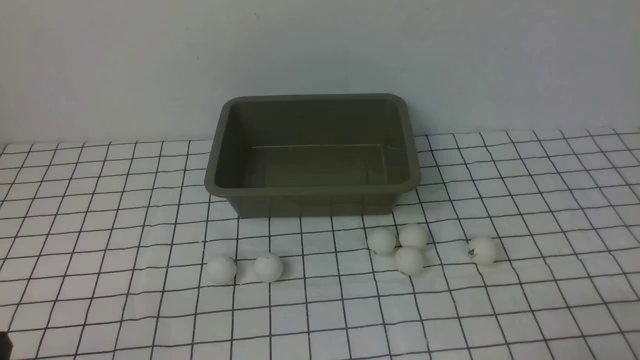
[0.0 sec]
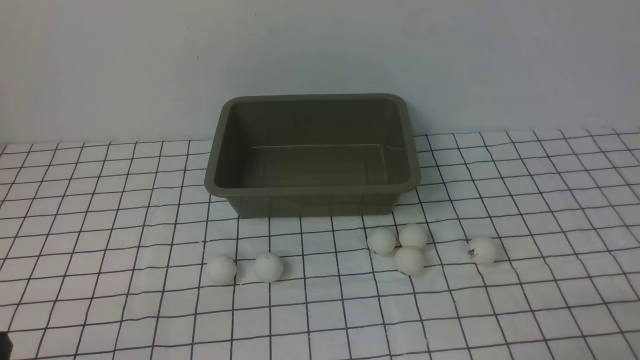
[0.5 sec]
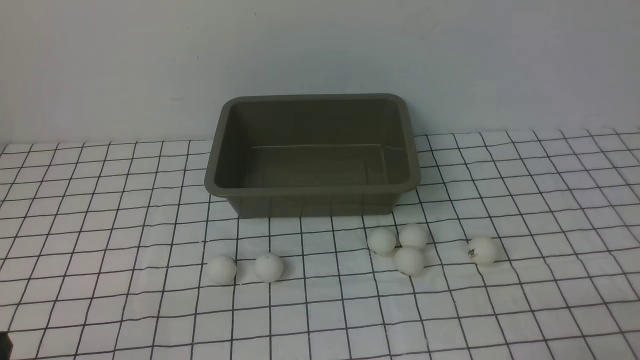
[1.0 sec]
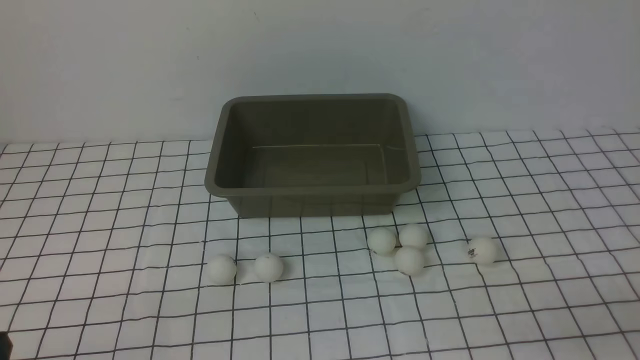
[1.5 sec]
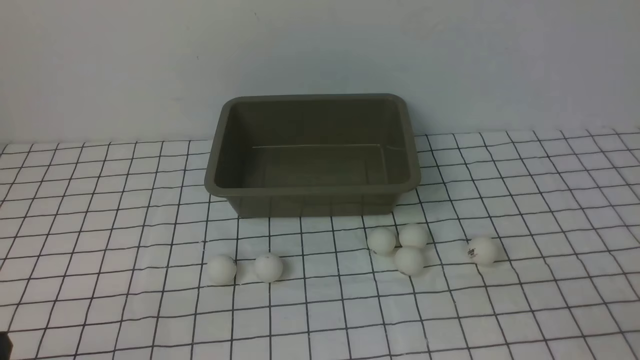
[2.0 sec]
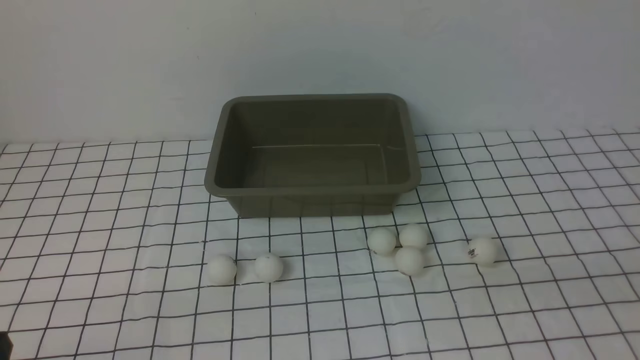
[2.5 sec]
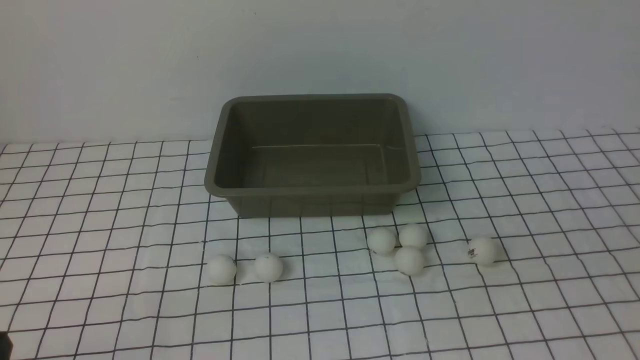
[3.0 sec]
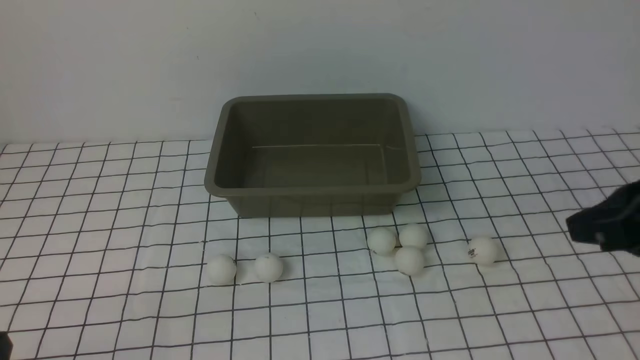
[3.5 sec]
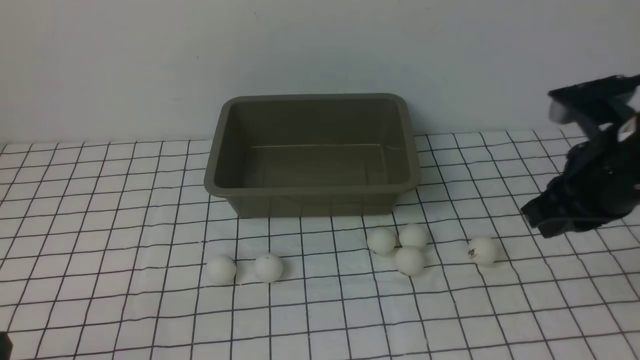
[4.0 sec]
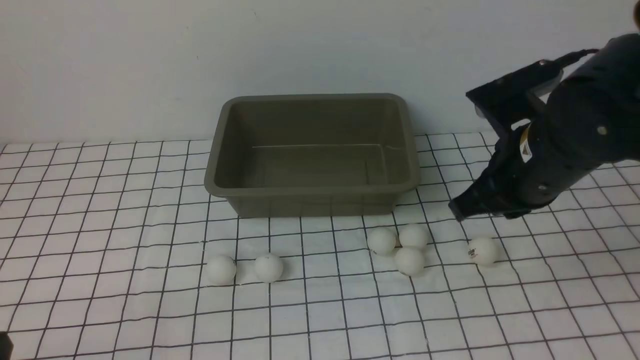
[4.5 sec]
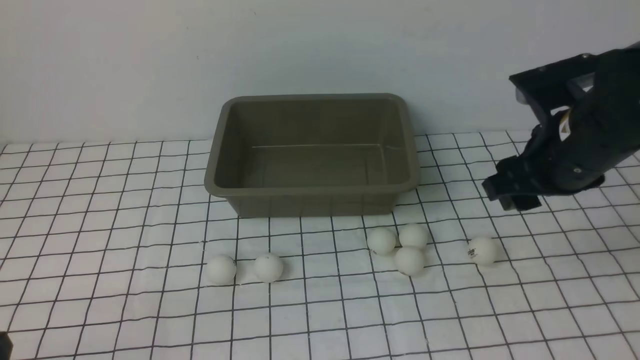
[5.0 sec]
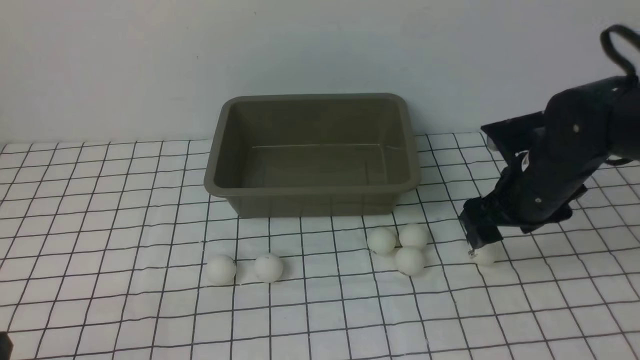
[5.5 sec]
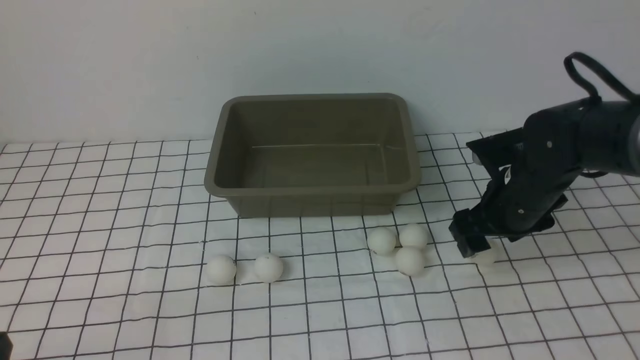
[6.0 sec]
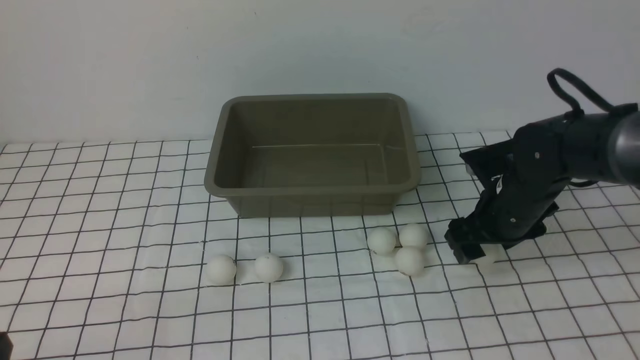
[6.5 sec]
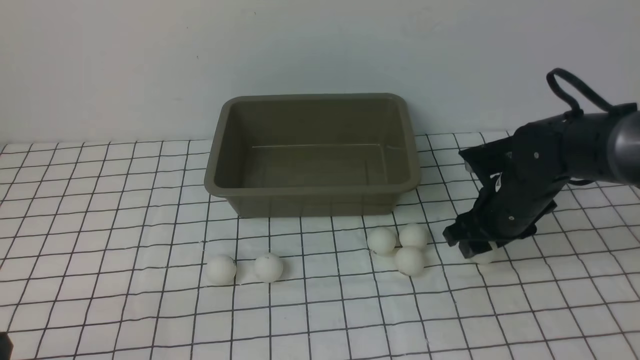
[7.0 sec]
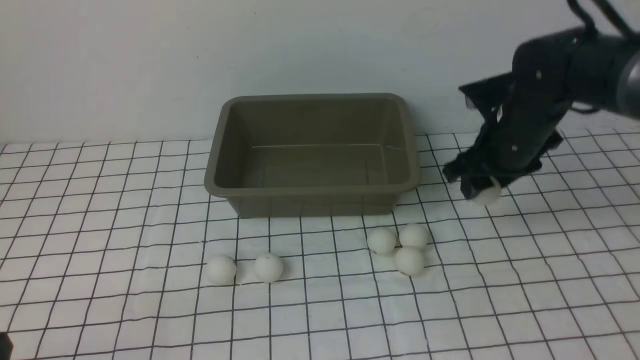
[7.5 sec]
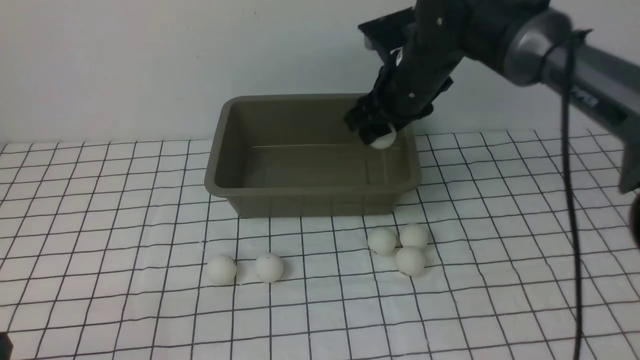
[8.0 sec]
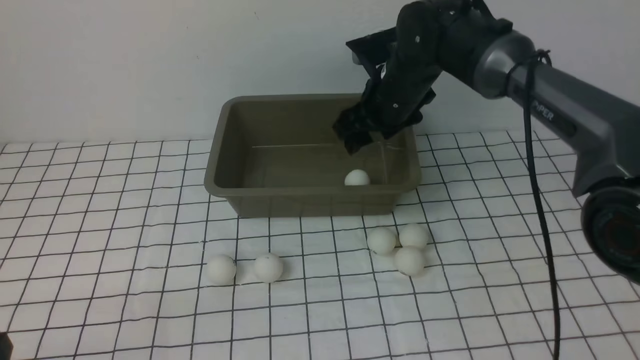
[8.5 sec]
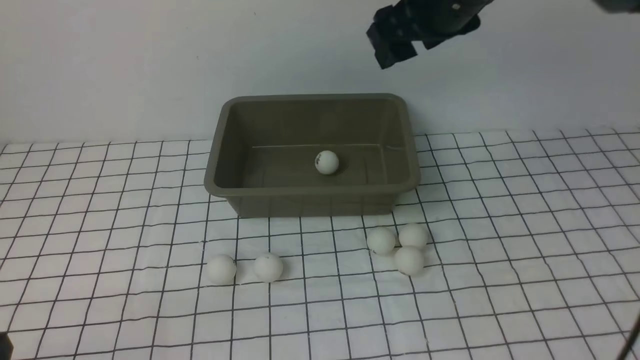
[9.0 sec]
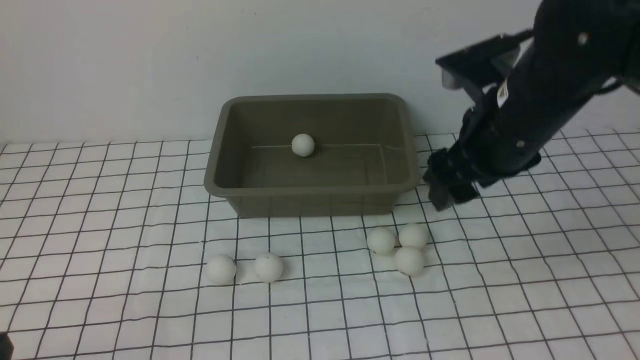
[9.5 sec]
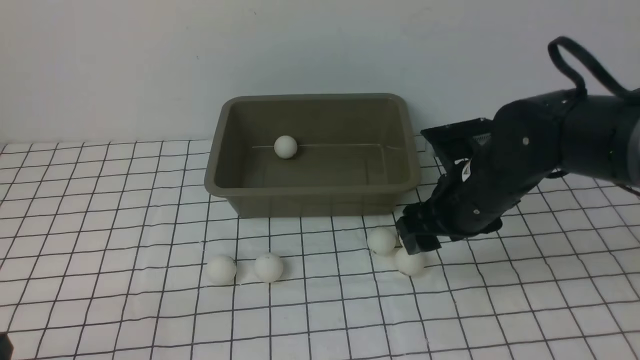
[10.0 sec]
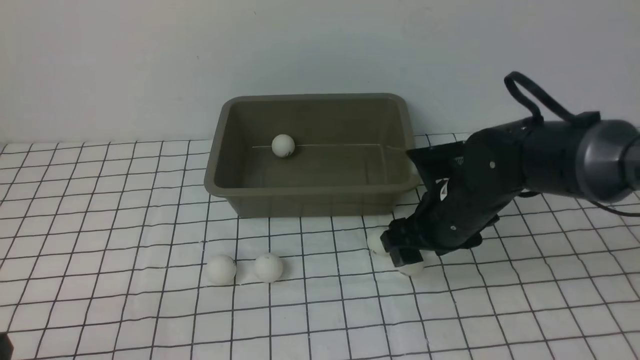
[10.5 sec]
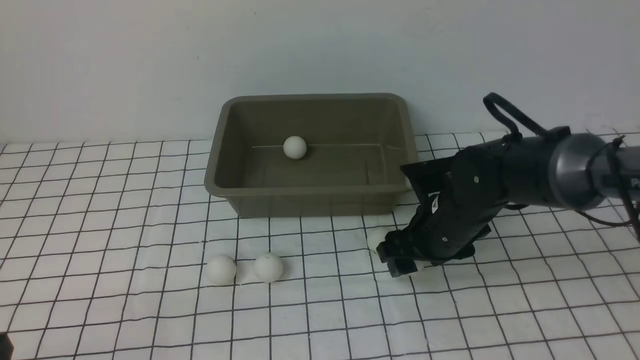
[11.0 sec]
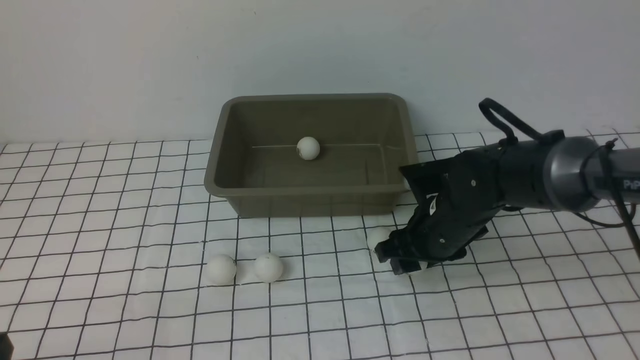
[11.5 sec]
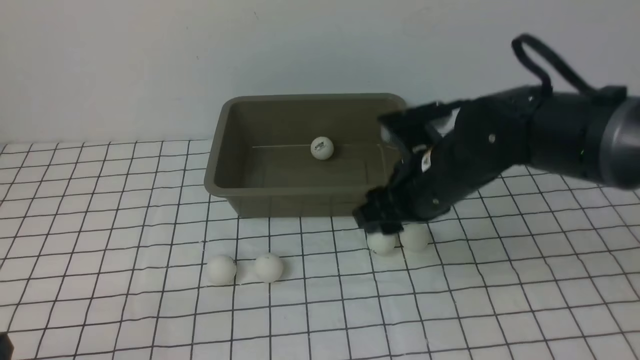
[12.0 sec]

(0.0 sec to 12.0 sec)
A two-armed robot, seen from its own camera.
Step, 0.0 sec - 7.5 sec: use the right arm to clamp the table tennis ball closest to it.
Step, 8.0 sec - 8.5 sec: use the right arm to put the table tennis ball into the box.
Step, 9.0 sec - 11.5 sec: use the right arm to clamp the table tennis ball closest to it.
2.0 sec - 4.0 sec: The right gripper shifts roughly 25 cm forward and to the left.
4.0 sec - 6.0 sec: The right gripper moves downward and forward, about 15 cm, and opens.
6.0 sec - 8.0 sec: The right gripper heads to the left, upward and forward, covering about 15 cm.
8.0 sec - 10.0 sec: The right gripper moves backward and downward, approximately 15 cm.
10.0 sec - 12.0 sec: There are only small adjustments of the grippers.

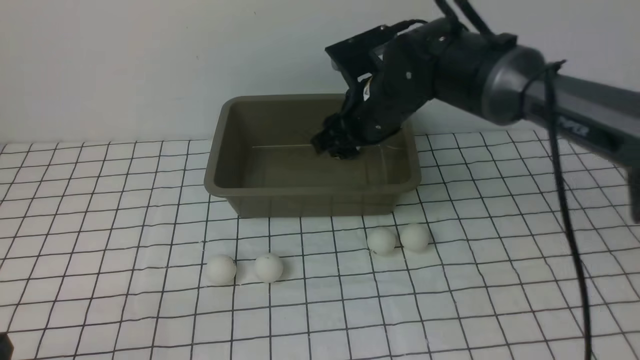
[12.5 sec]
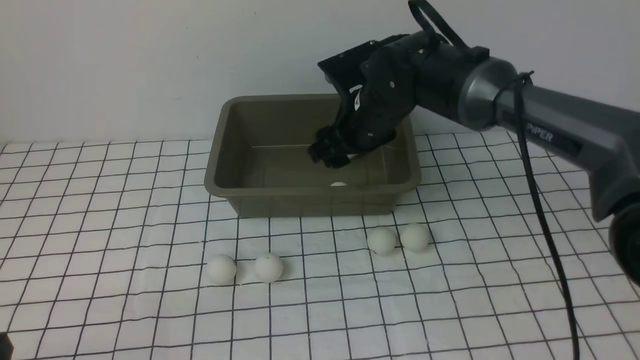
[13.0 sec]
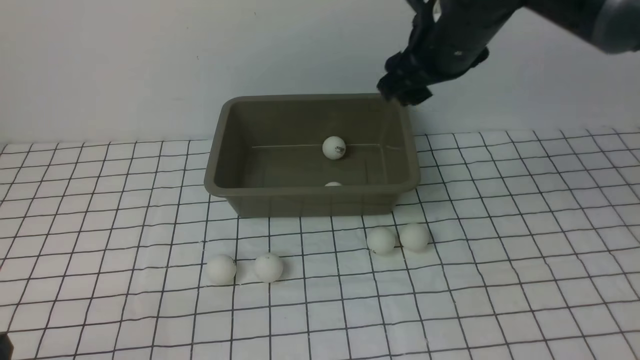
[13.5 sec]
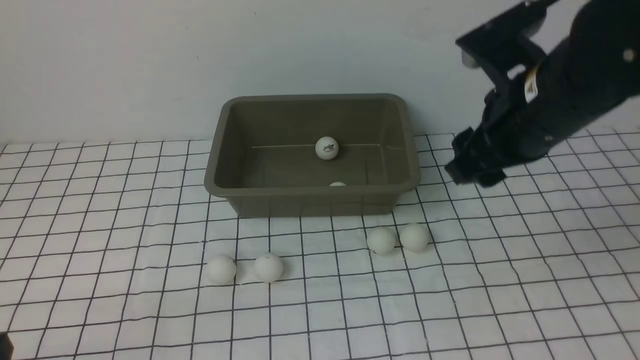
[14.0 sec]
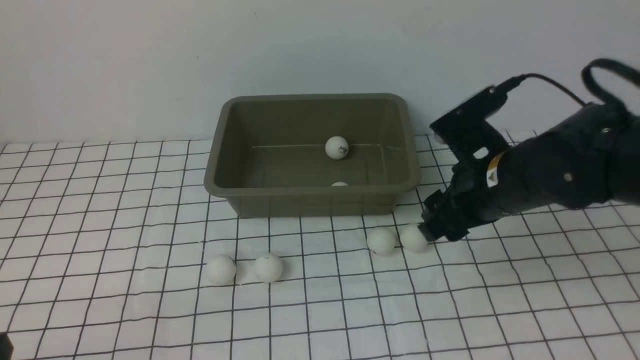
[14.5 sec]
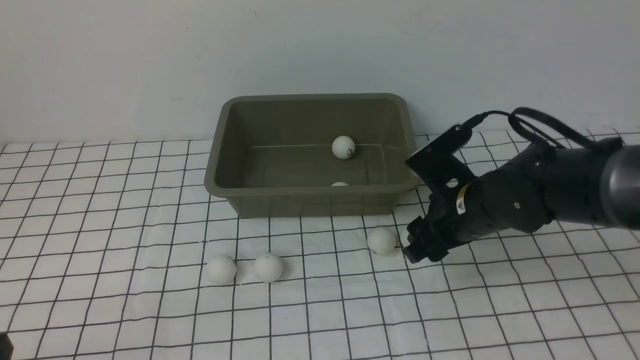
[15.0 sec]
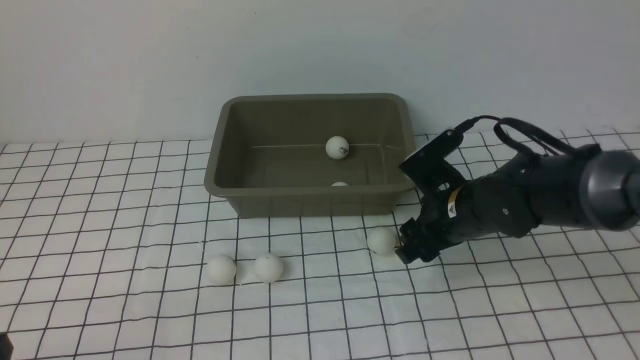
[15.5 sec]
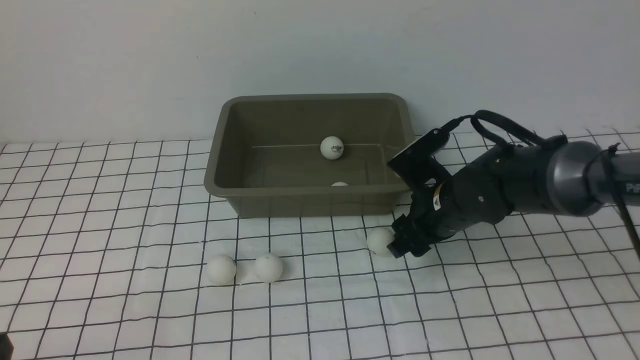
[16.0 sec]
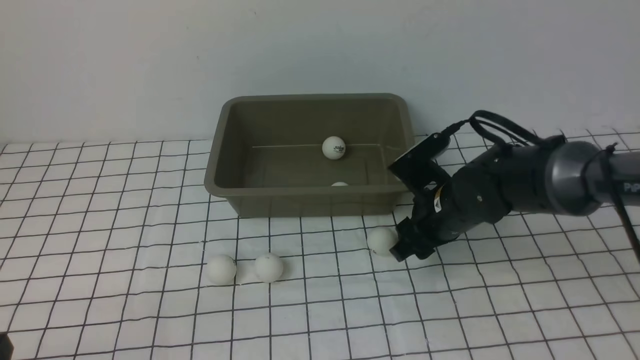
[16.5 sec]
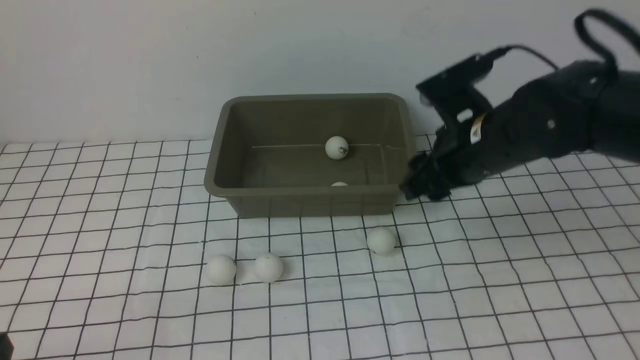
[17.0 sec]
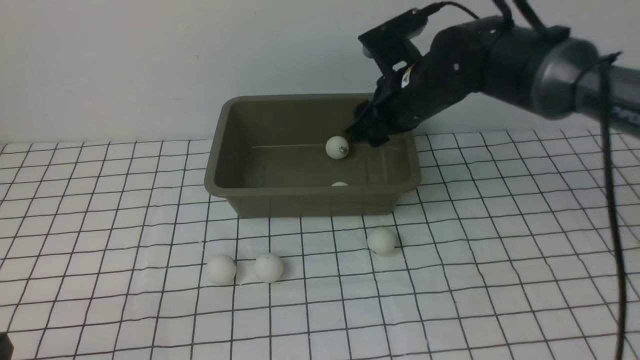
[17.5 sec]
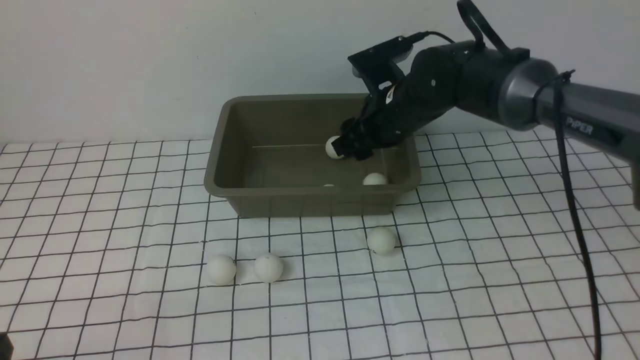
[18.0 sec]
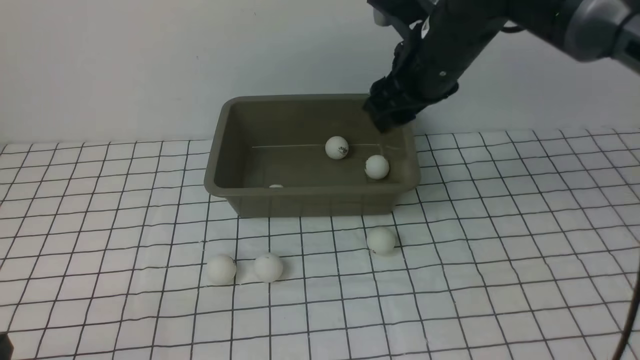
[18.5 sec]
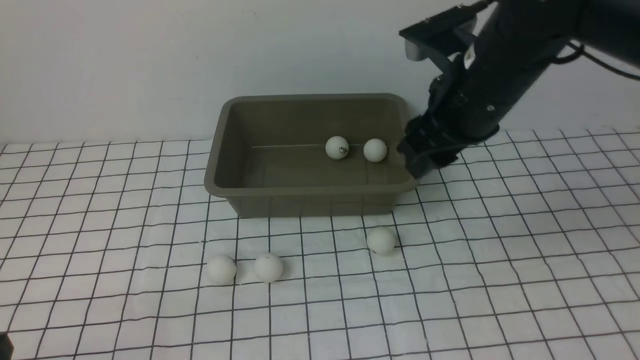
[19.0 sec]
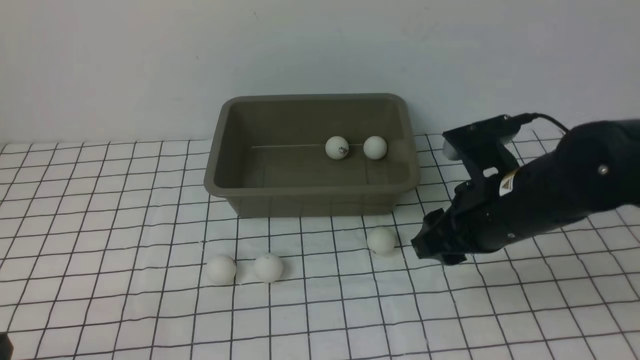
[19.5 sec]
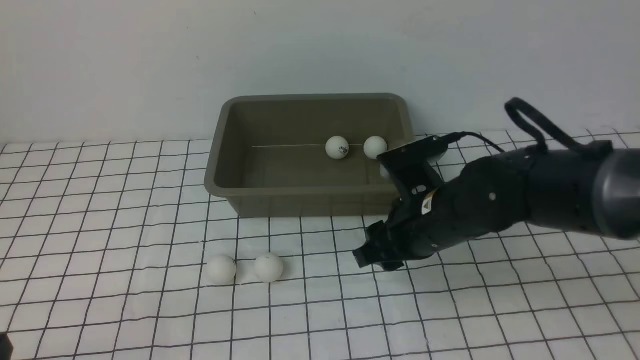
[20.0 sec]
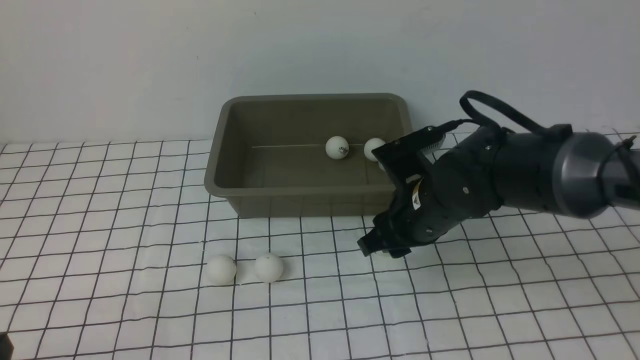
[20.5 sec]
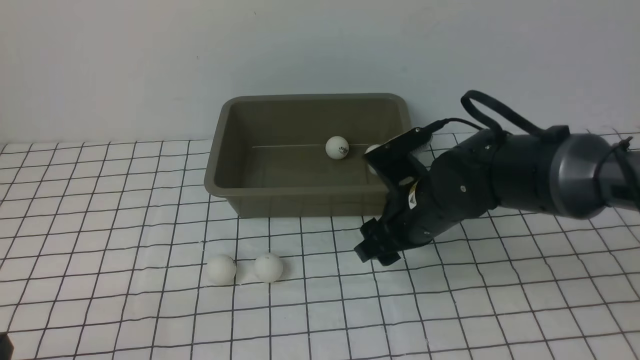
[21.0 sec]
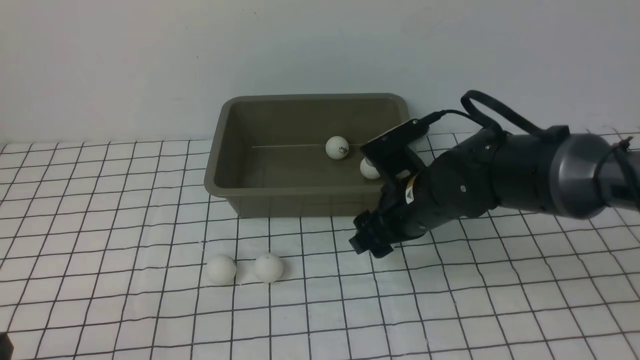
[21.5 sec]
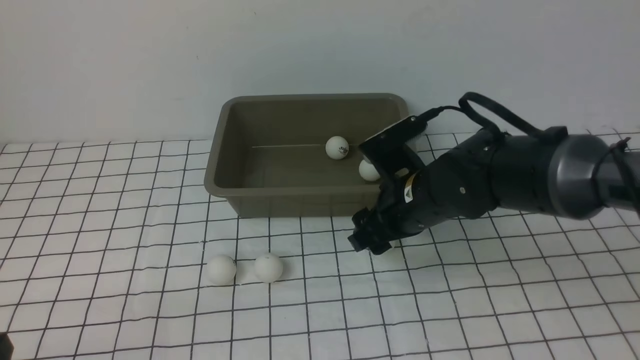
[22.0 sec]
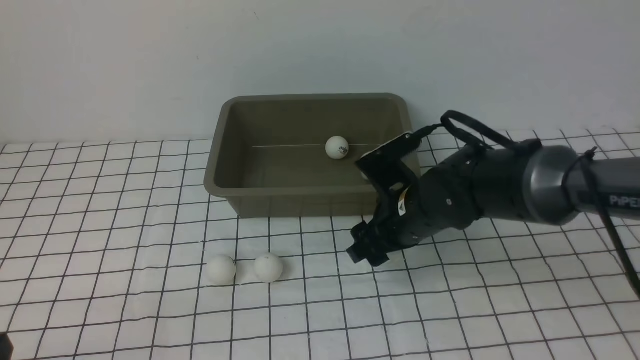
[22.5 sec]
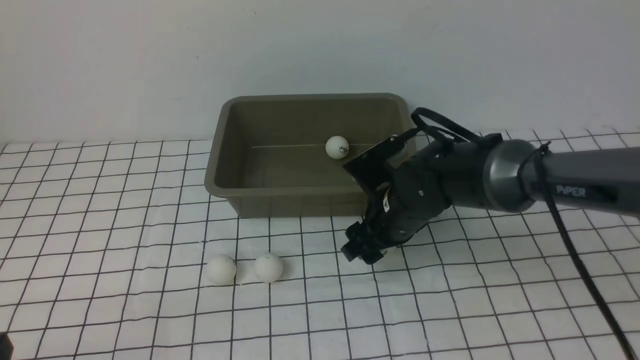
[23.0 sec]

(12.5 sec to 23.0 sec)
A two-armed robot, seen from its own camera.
Step, 12.5 sec - 13.0 sec: use the right arm to put the table tennis ball into the box.
Step, 13.5 sec - 16.5 sec: use the right arm to clamp the table tennis ball closest to it.
Step, 17.5 sec - 18.0 sec: use the right arm to put the table tennis ball into the box.
12.5 sec - 14.5 sec: The right gripper heads to the right and backward, covering about 15 cm, and reaches some 10 cm upward, then returns.
14.5 sec - 16.5 sec: The right gripper goes roughly 10 cm downward.
16.5 sec - 19.0 sec: The right gripper moves upward, some 15 cm.
19.0 sec - 21.0 sec: The right gripper shifts roughly 15 cm downward.
21.0 sec - 23.0 sec: The right gripper moves about 5 cm.
